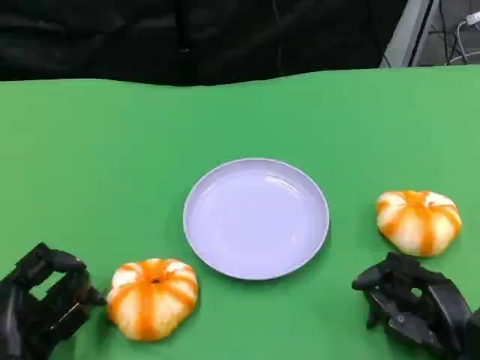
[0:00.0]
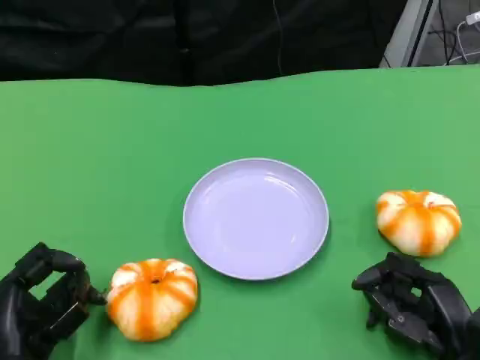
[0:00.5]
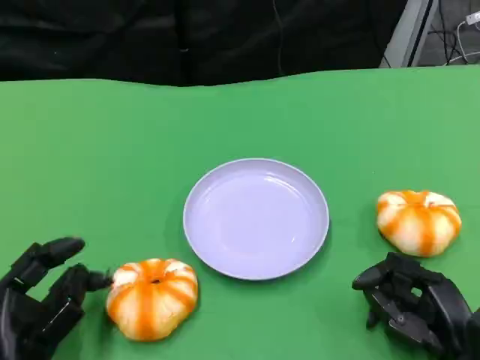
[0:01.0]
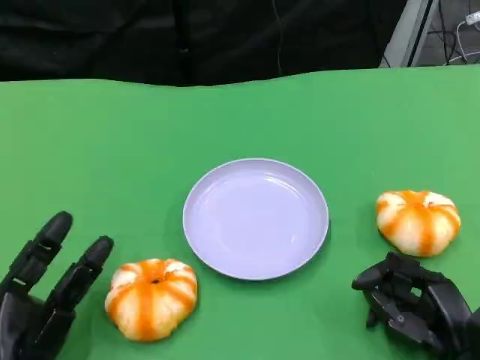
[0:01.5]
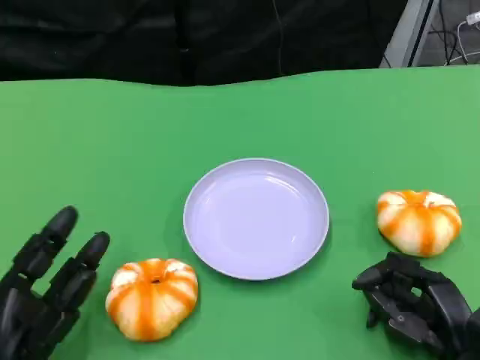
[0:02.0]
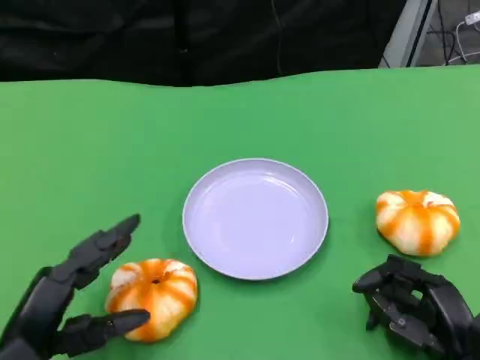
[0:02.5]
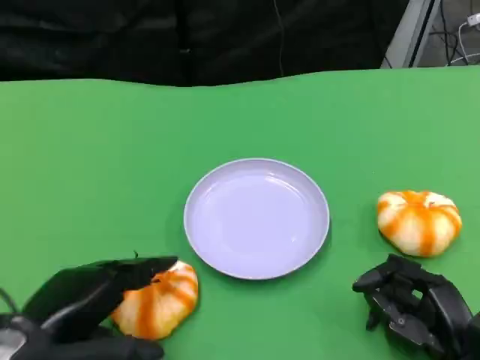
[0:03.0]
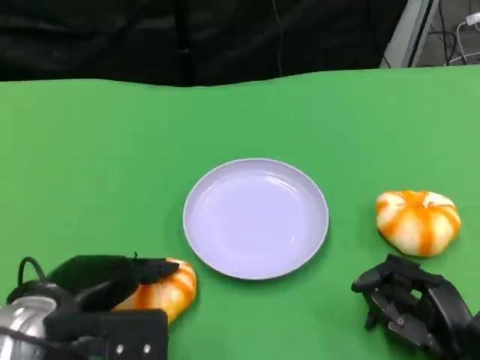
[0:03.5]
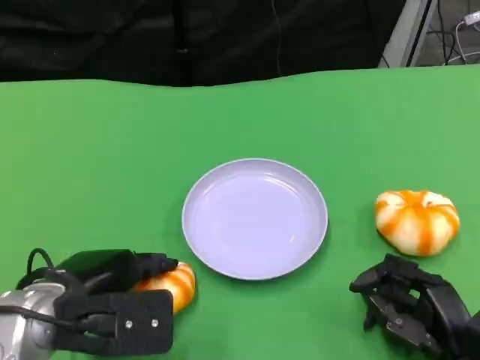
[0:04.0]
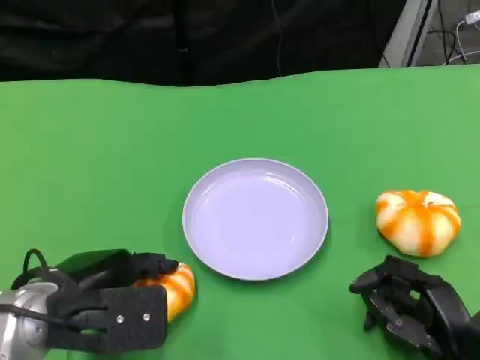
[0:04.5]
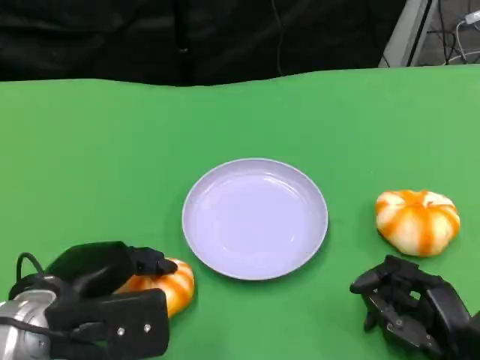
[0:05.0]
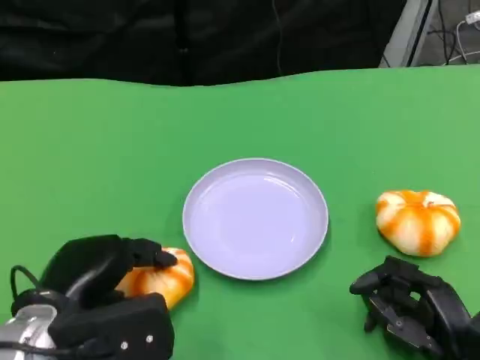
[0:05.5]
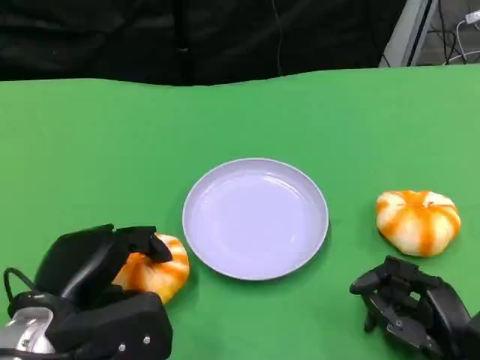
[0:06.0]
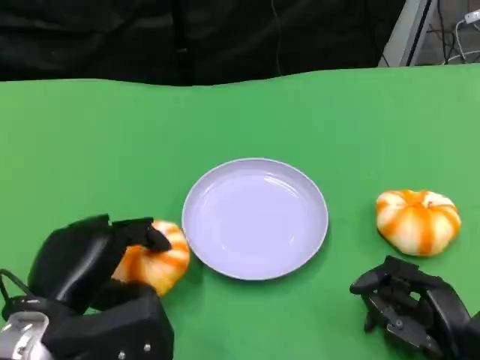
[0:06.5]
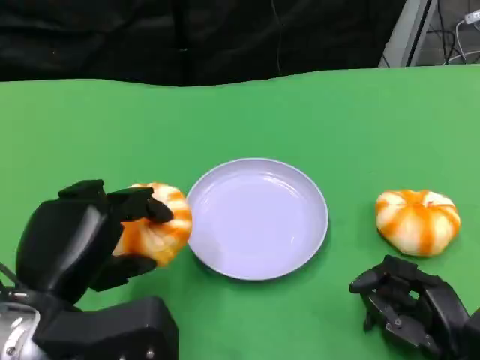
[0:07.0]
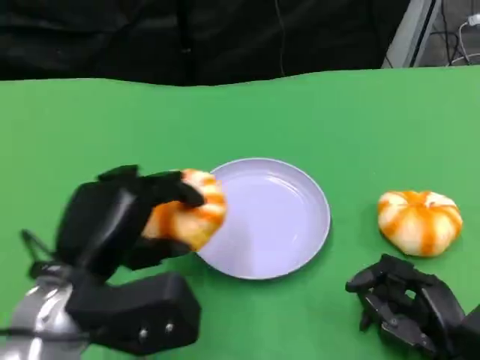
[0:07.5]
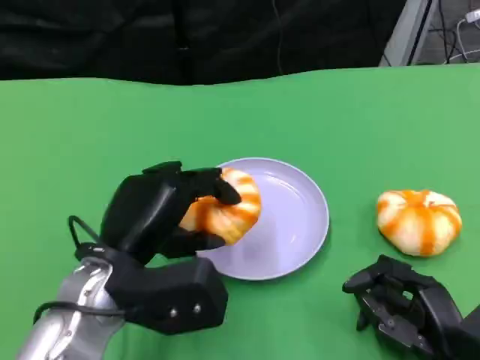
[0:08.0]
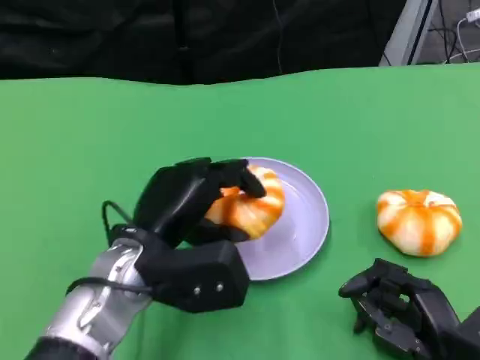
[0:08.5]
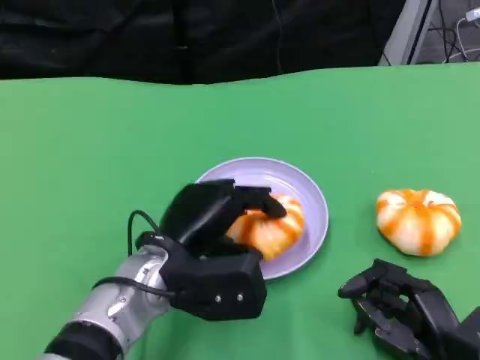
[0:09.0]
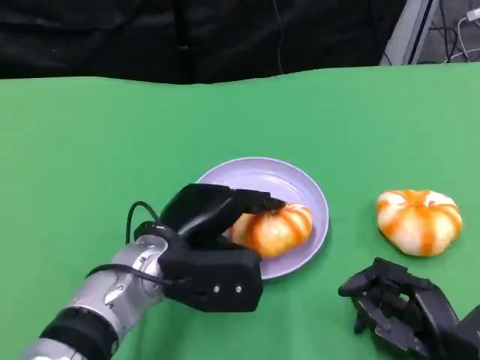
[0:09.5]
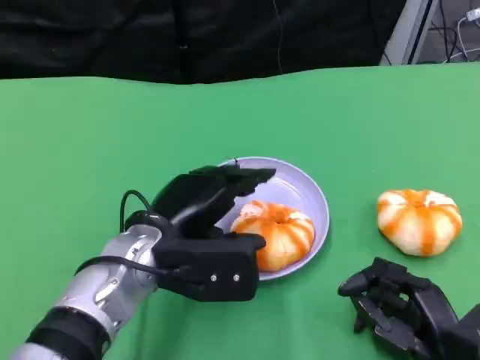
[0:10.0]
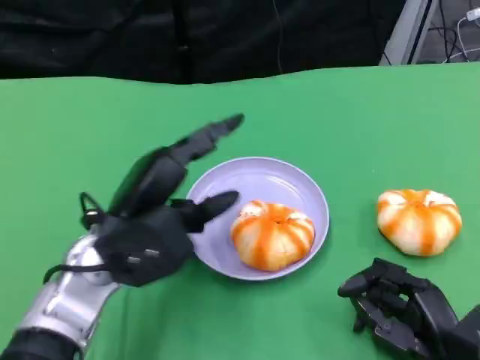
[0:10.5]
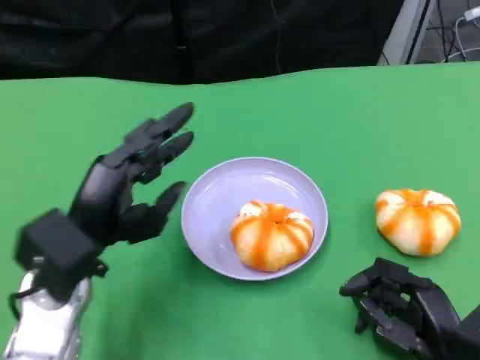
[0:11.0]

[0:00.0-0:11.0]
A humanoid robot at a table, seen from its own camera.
Task of the whole recording: Grasp the bread from the table and place it into the plate.
0:02.0 to 0:03.5: The left hand heads upward, covering some 10 cm.
0:05.5 to 0:07.5: The left hand ends up some 5 cm from where it was.
0:07.5 to 0:09.0: The left hand moves to the right and downward, approximately 10 cm.
0:09.0 to 0:11.0: The left hand is displaced to the left by some 10 cm.

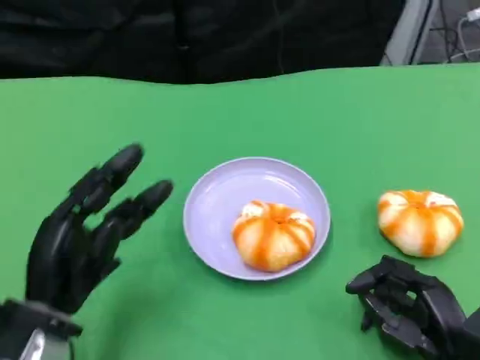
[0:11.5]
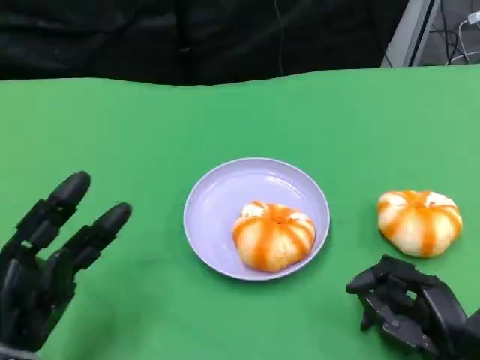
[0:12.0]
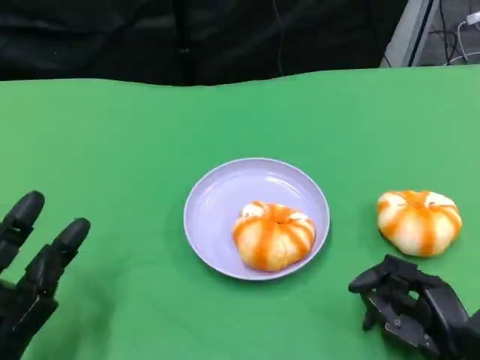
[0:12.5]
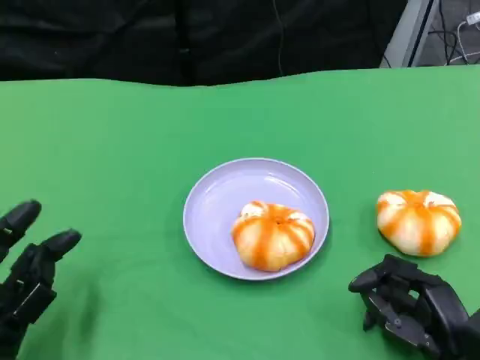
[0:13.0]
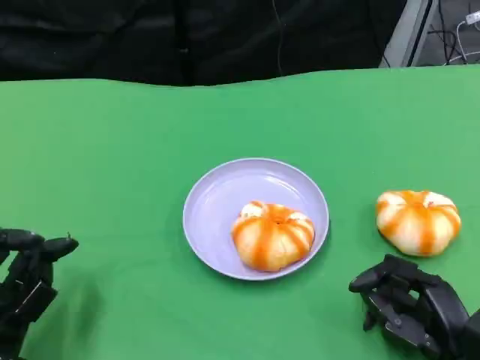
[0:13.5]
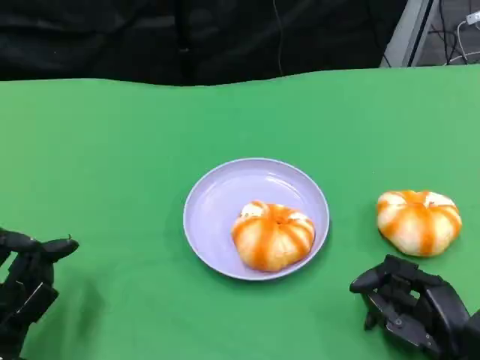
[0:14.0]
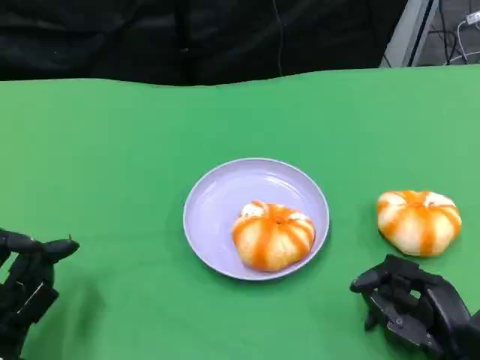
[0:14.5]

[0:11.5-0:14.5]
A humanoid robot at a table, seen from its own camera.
Task of the whole recording: Grasp the bread from the table and place it into the plate.
0:11.5 to 0:13.0: The left hand changes place by roughly 5 cm.
0:13.0 to 0:14.5: Both hands stay put.

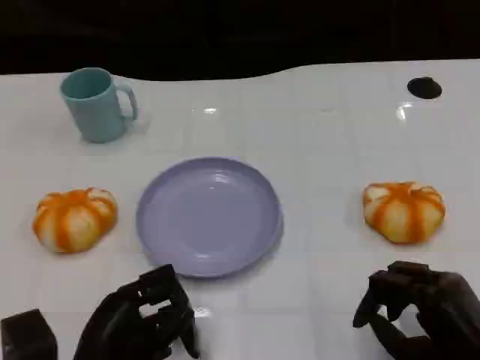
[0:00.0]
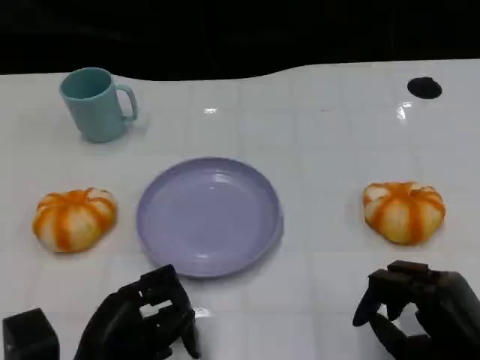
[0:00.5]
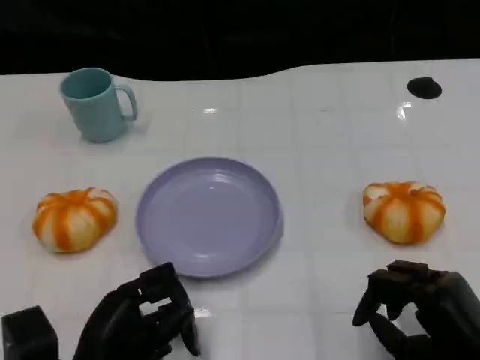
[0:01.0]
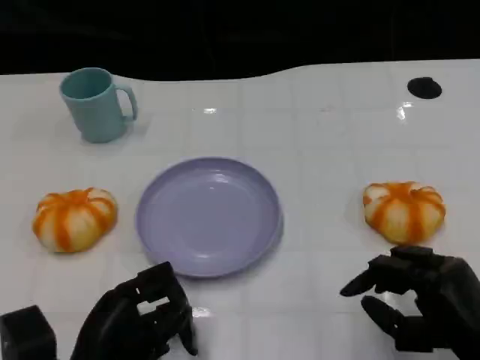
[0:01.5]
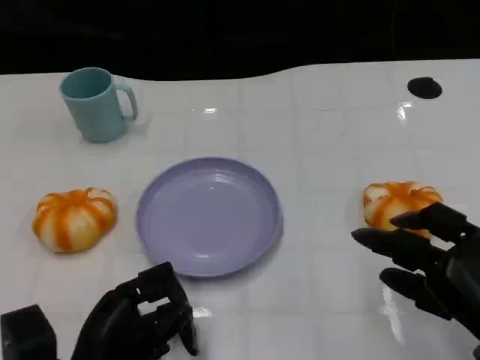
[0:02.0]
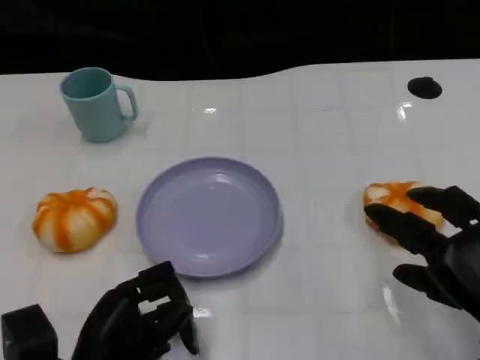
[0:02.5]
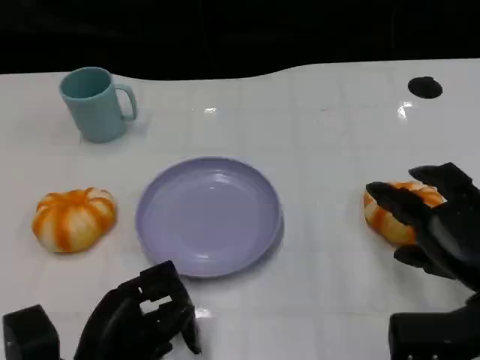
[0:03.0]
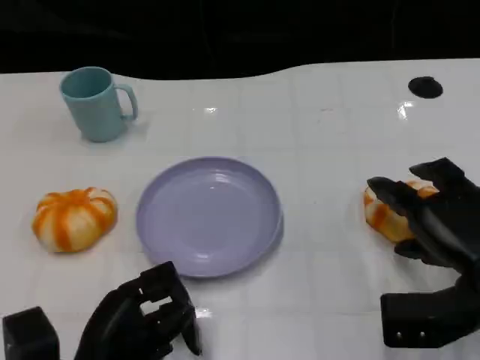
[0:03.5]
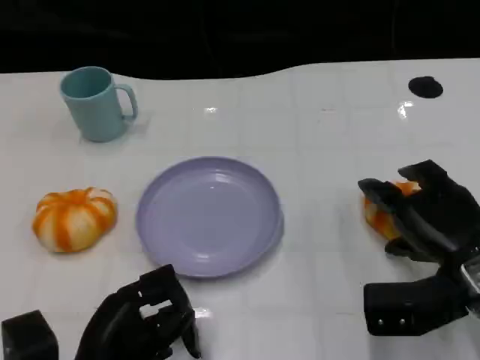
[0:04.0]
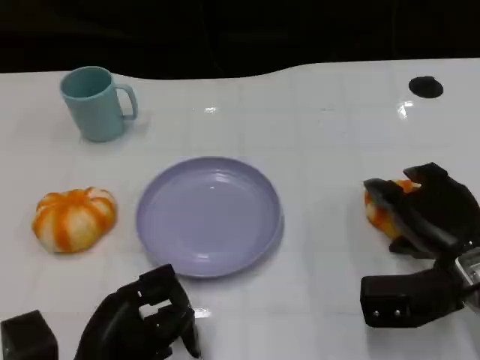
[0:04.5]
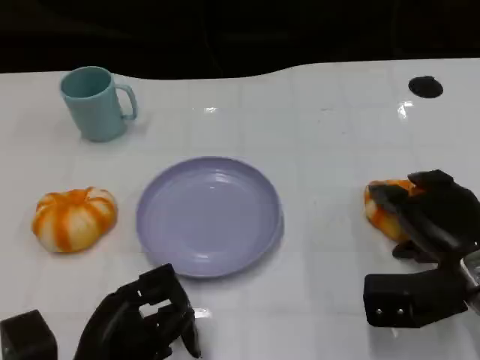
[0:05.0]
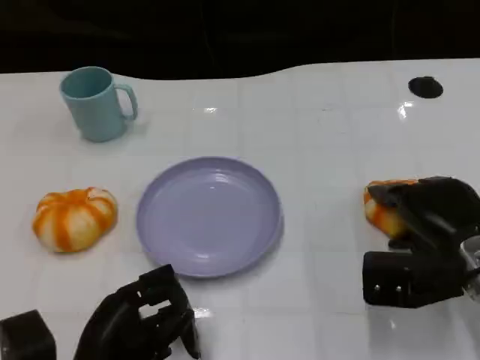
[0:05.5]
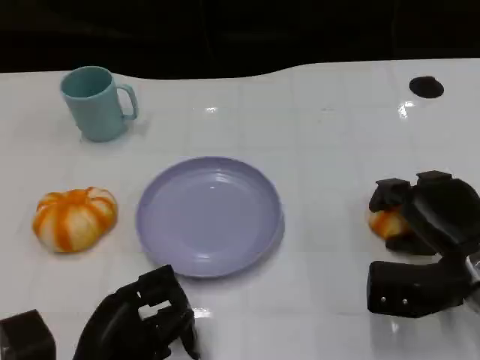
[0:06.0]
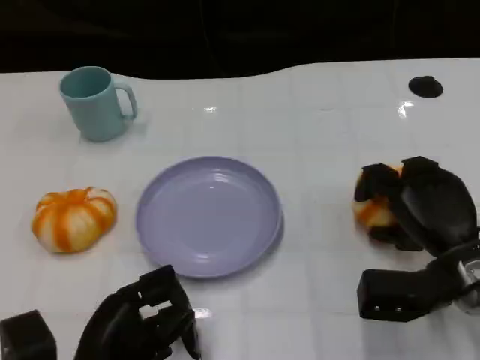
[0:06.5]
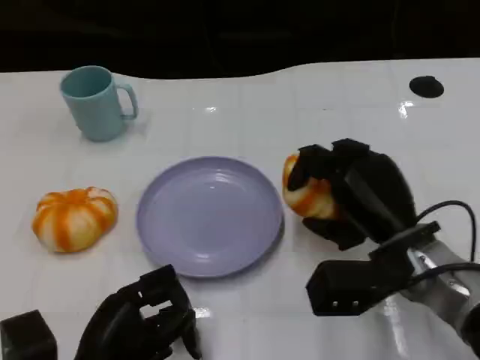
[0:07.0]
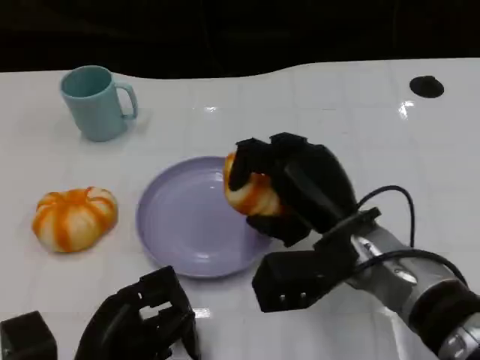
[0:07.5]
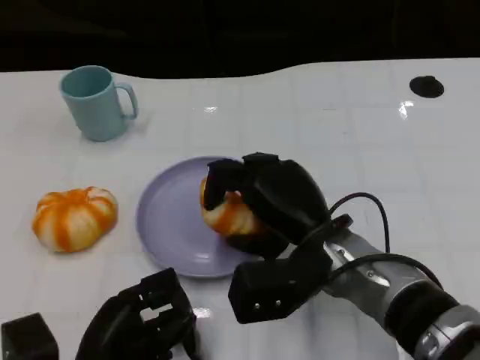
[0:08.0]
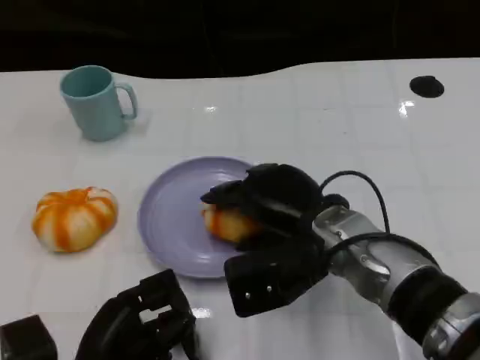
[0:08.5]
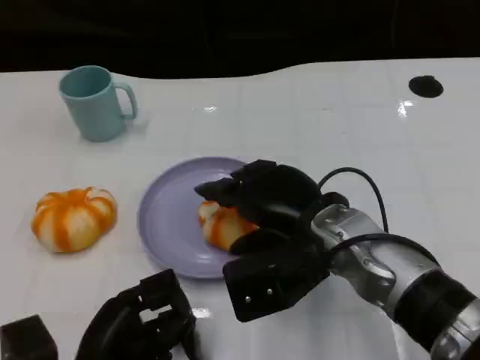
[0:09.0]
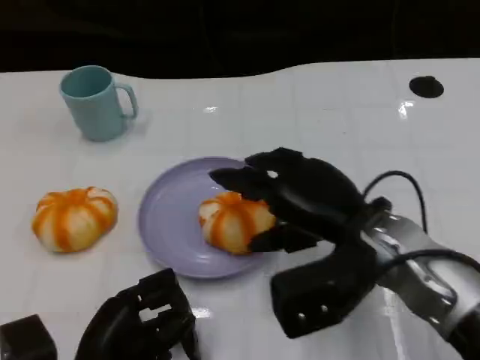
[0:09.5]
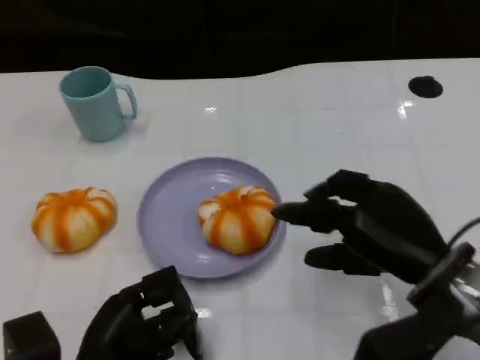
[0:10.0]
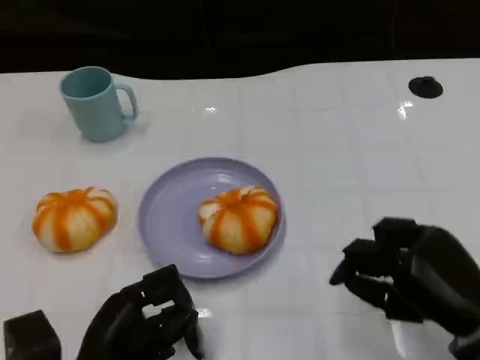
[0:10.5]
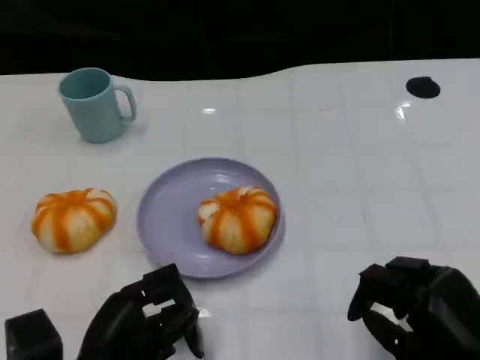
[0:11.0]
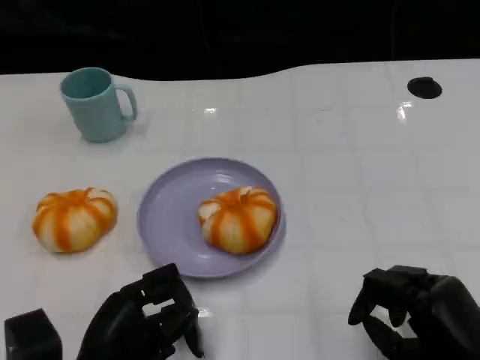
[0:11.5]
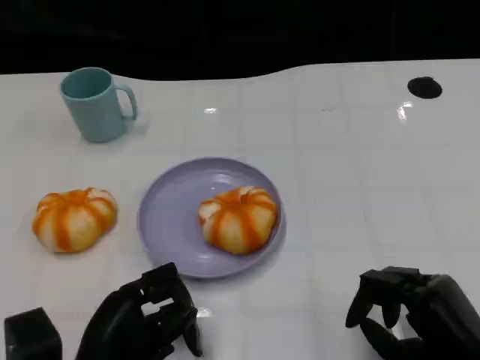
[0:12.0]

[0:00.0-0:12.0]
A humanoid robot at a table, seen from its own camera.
Task of the whole recording: Grasp the bread from the table and place it into the plate.
0:02.0 to 0:04.0: The right hand shifts some 10 cm forward.
0:04.0 to 0:06.0: There are only small adjustments of the hands.
0:06.0 to 0:08.0: The right hand travels to the left by some 15 cm.
0:08.0 to 0:10.0: The right hand is displaced to the right by some 10 cm.
0:10.0 to 0:12.0: The right hand moves downward and backward, some 10 cm.
